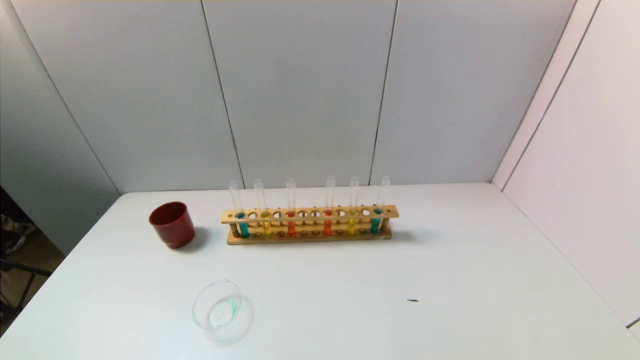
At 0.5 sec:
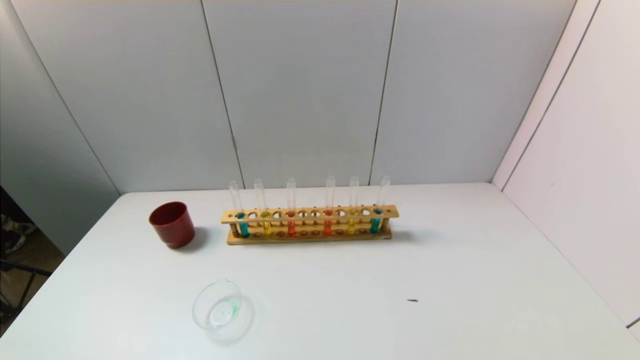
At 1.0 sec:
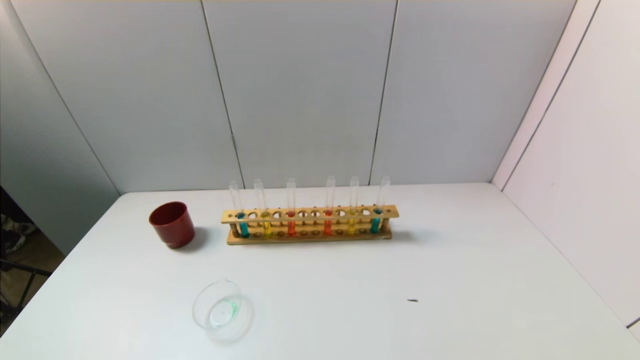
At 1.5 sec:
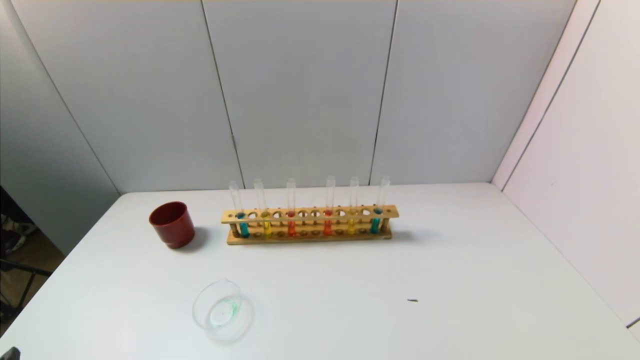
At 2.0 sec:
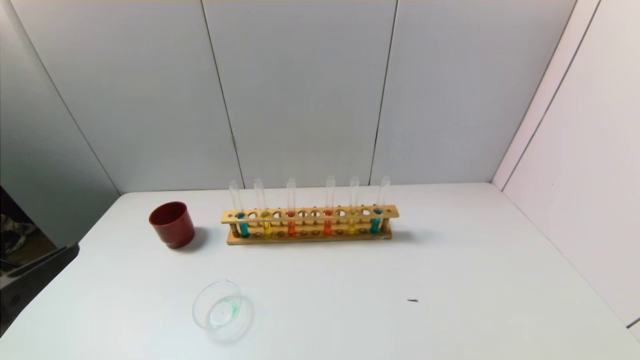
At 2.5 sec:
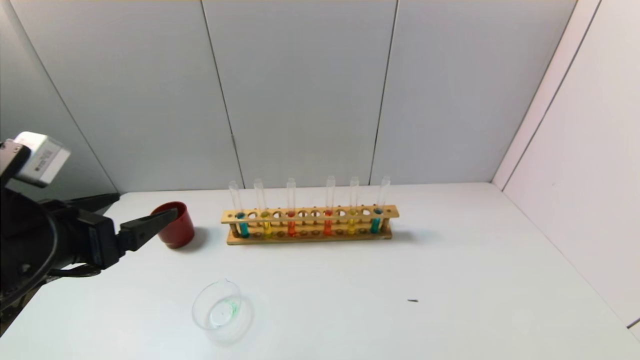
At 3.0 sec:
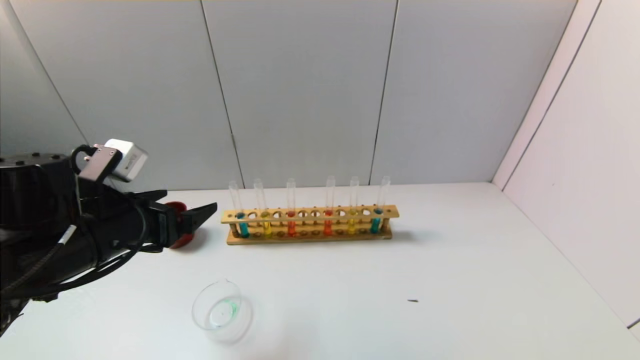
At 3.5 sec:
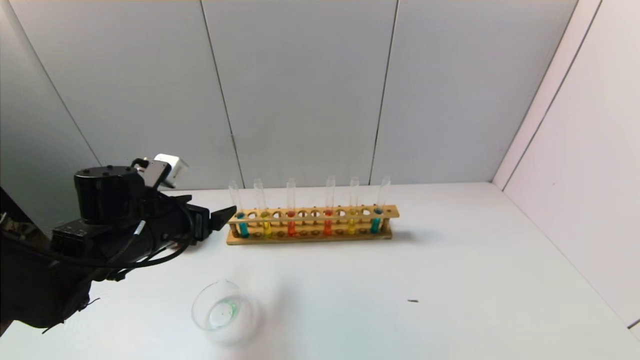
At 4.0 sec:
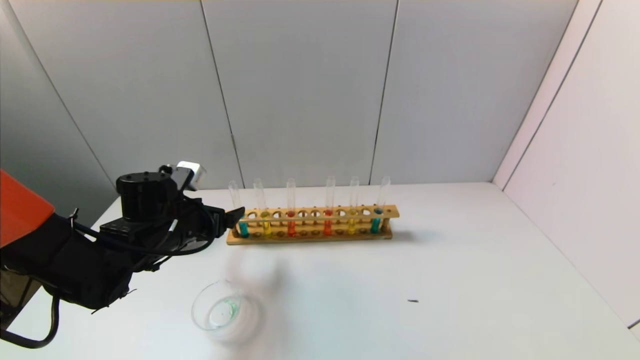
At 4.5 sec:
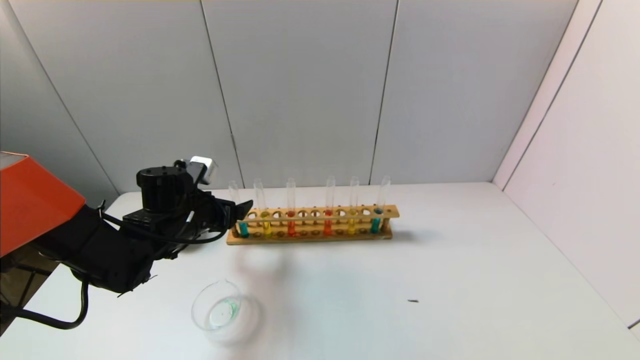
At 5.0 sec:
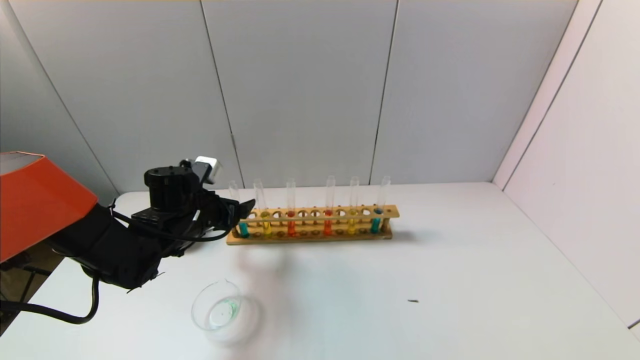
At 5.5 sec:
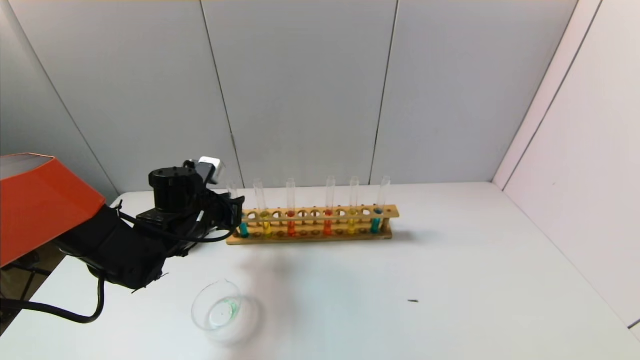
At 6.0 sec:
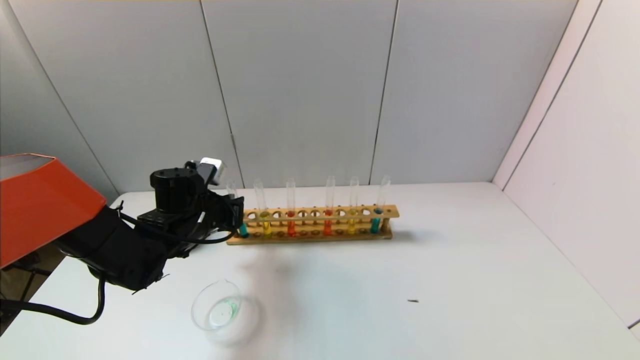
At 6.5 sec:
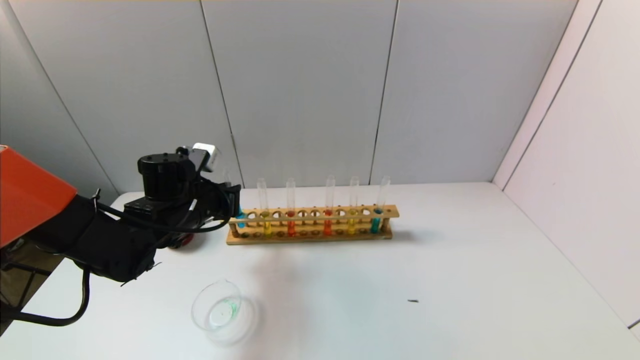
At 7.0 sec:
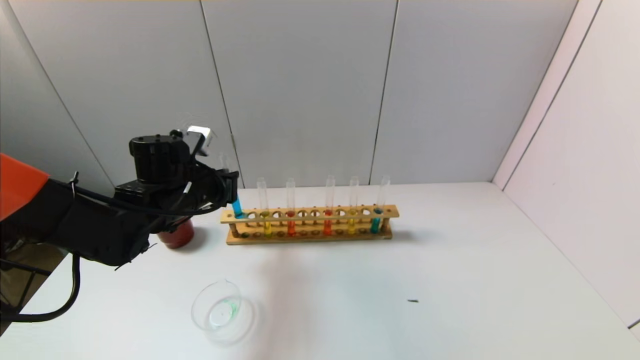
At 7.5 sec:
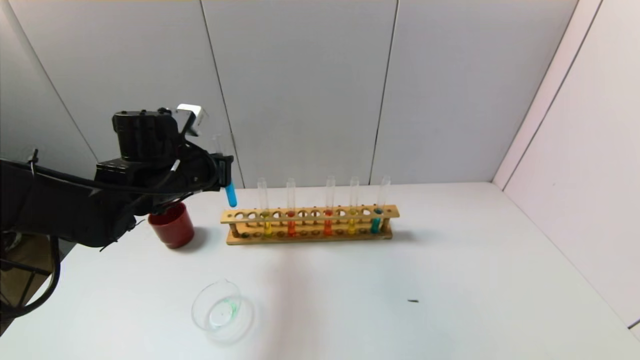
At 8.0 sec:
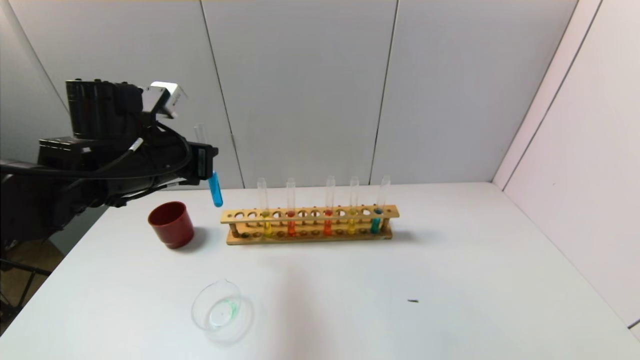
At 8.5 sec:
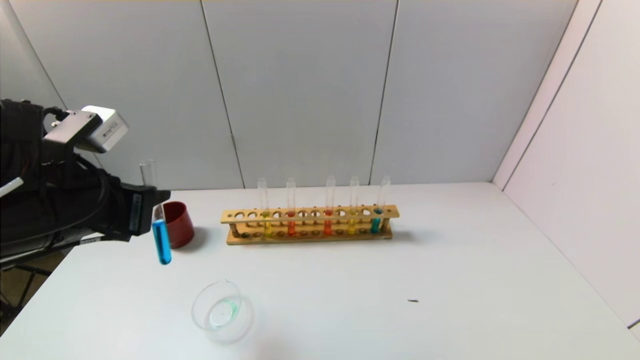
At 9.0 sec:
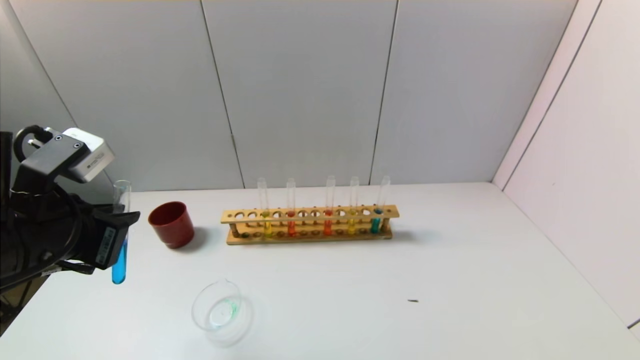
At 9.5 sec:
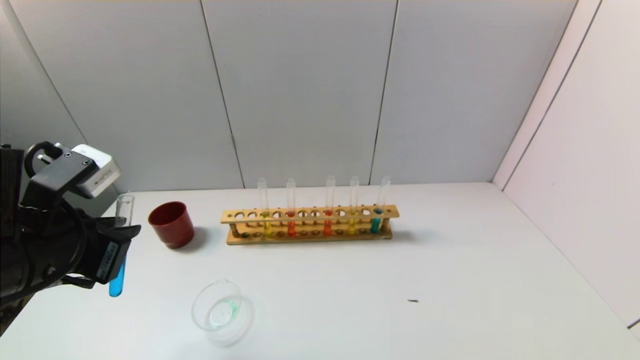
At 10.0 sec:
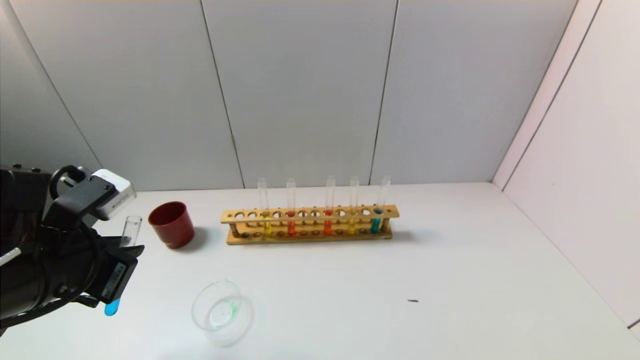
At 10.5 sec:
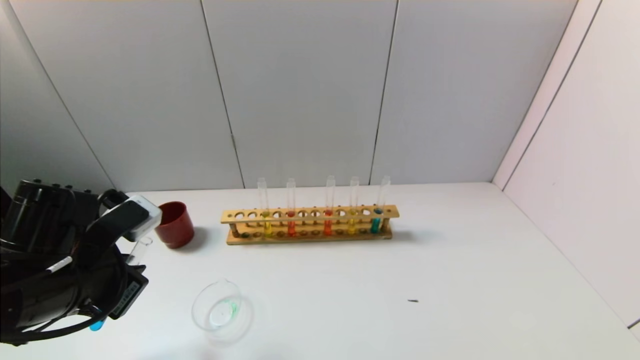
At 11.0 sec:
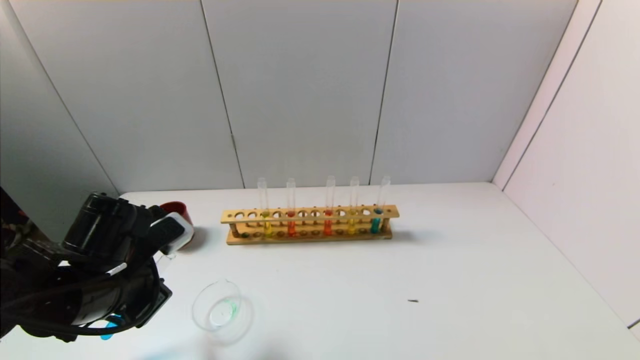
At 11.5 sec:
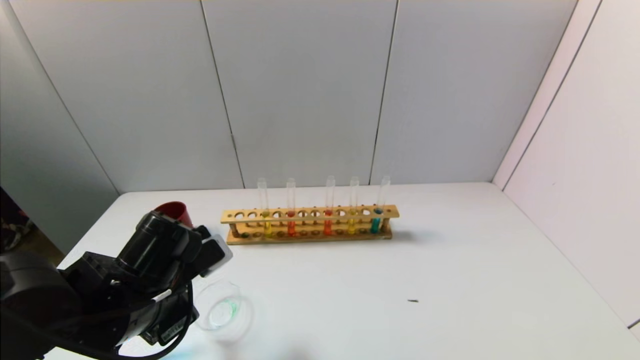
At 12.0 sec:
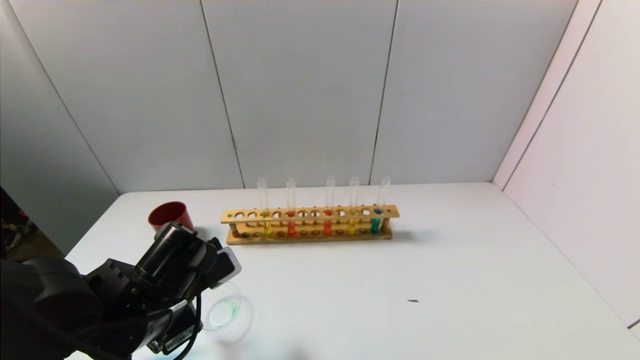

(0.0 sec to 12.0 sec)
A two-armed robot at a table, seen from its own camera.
Task of the whole recording: pick up the test tube with yellow pigment and the test tube with blue pigment by grippers and pour them into the beaker.
Step, 0.0 sec - 6.0 sec: Grasp the blue reagent with the left gripper.
2.0 sec - 4.0 sec: The left gripper moves forward and downward, some 25 cm.
4.0 sec - 6.0 sec: The left gripper closes.
6.0 sec - 8.0 sec: The left gripper is displaced upward by some 15 cm.
8.0 sec - 10.0 sec: The left gripper is displaced backward by approximately 10 cm.
10.0 sec - 12.0 sec: The left gripper heads downward and to the right, covering approximately 10 cm.

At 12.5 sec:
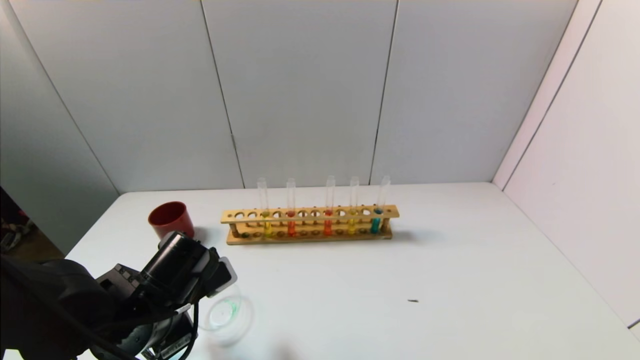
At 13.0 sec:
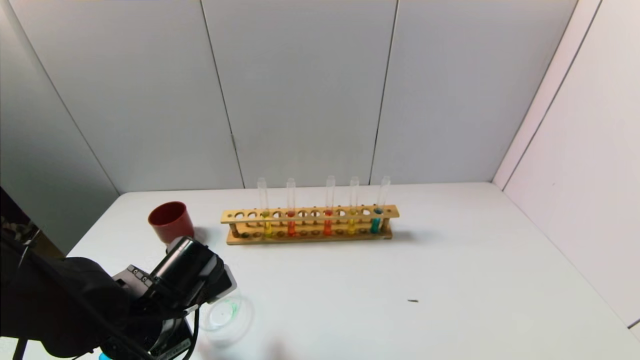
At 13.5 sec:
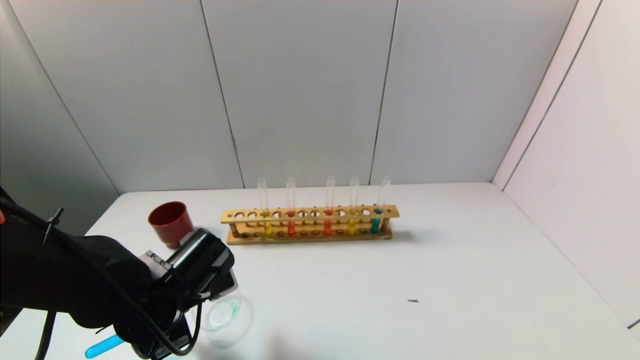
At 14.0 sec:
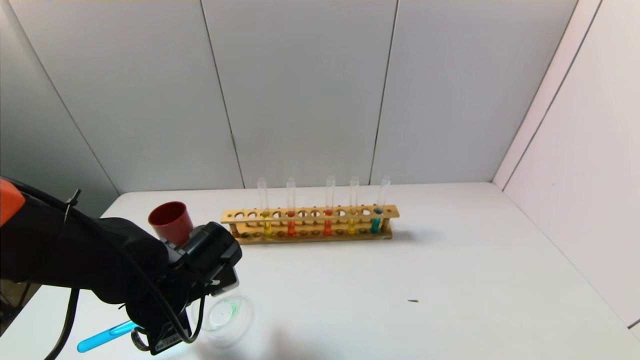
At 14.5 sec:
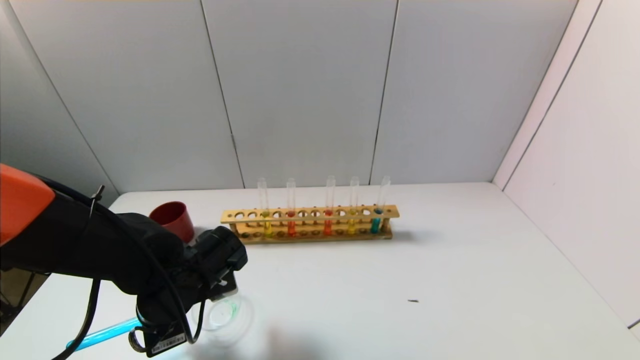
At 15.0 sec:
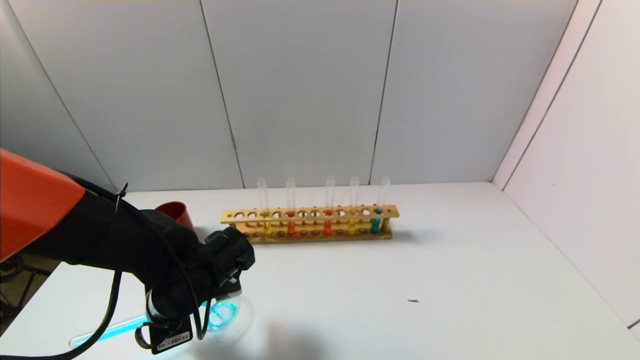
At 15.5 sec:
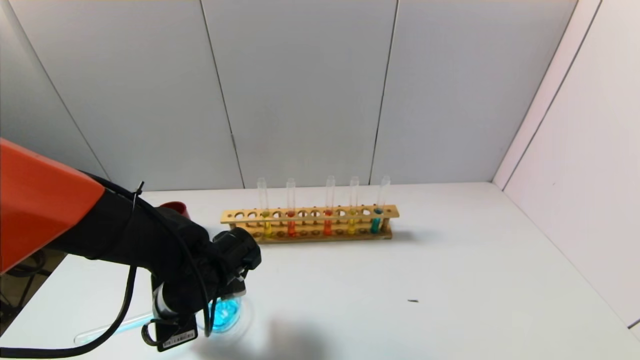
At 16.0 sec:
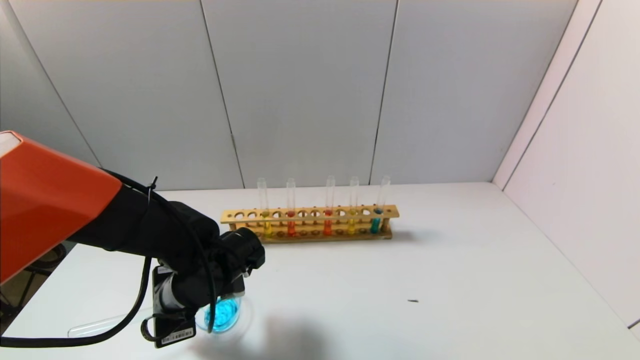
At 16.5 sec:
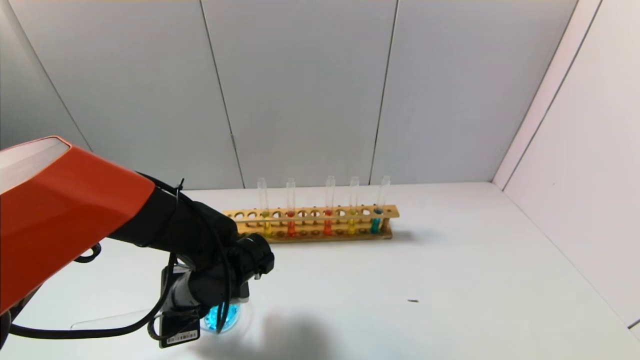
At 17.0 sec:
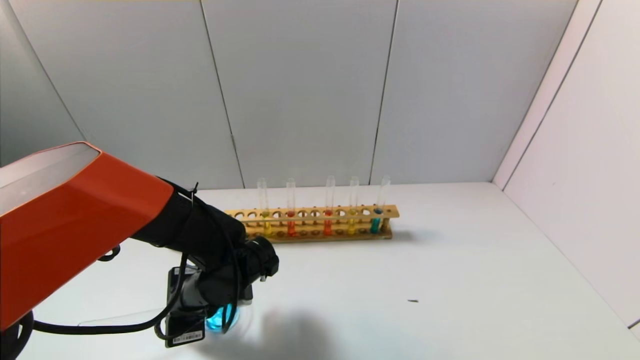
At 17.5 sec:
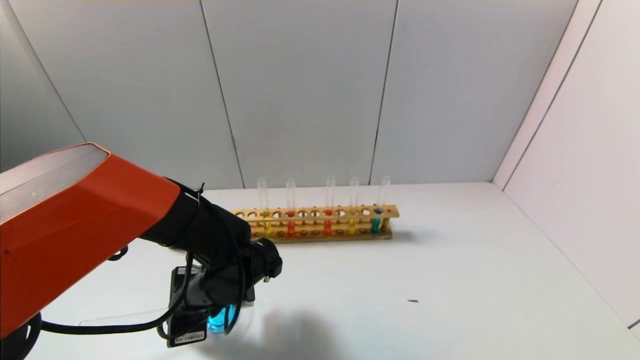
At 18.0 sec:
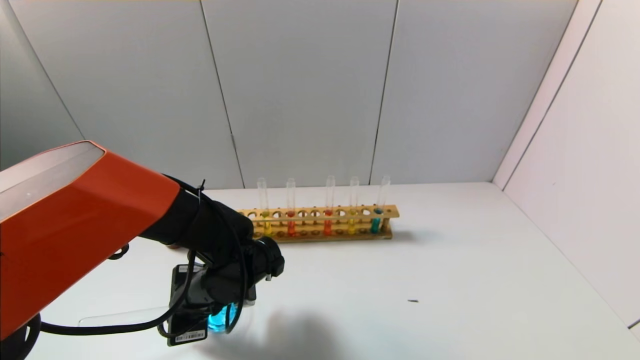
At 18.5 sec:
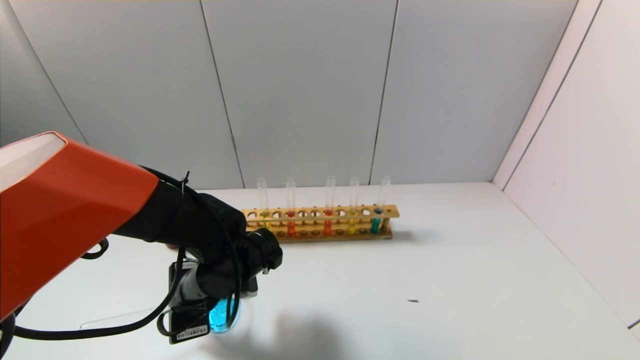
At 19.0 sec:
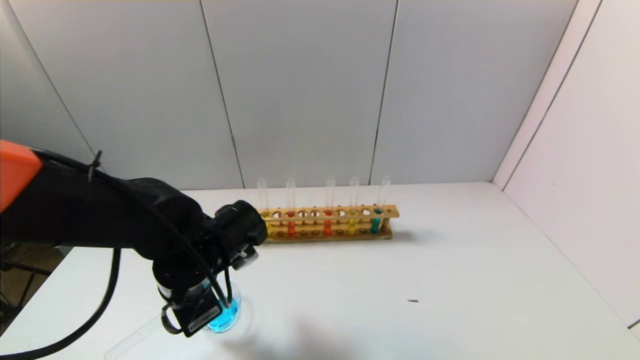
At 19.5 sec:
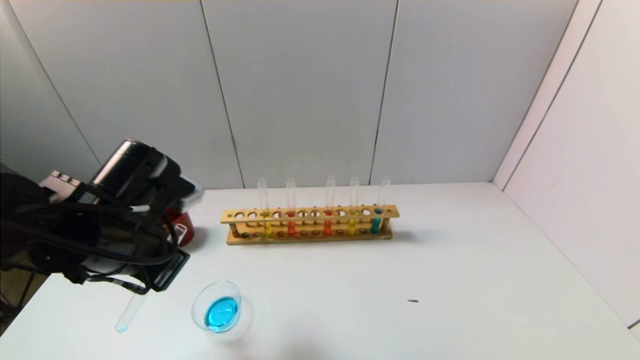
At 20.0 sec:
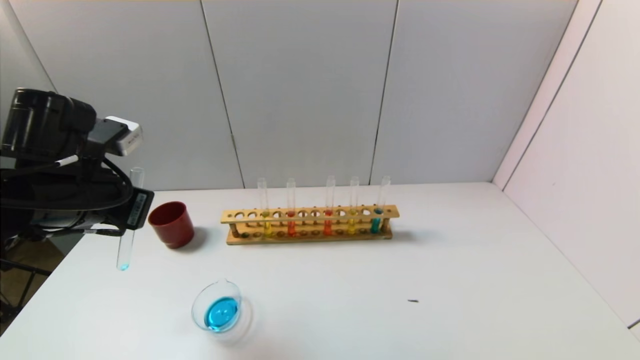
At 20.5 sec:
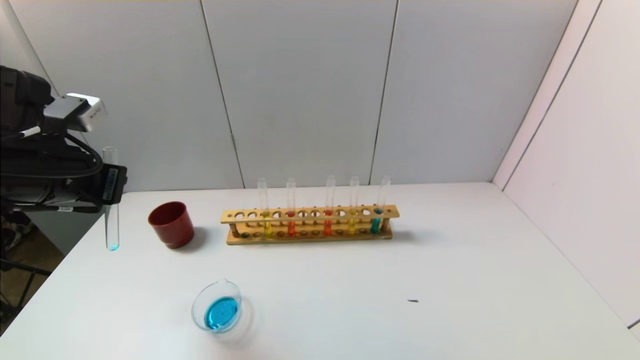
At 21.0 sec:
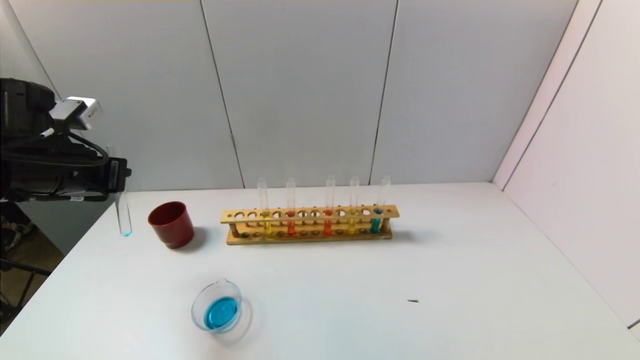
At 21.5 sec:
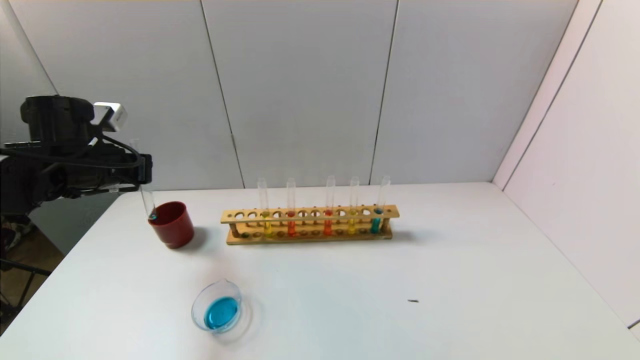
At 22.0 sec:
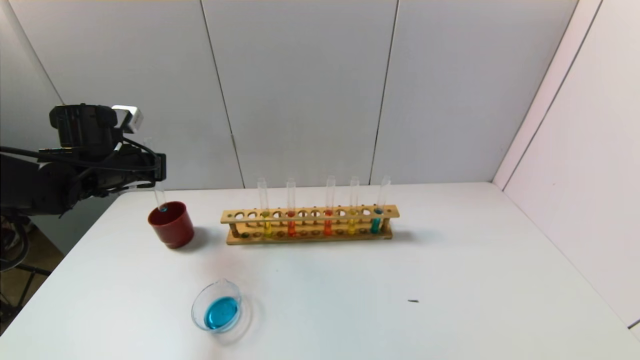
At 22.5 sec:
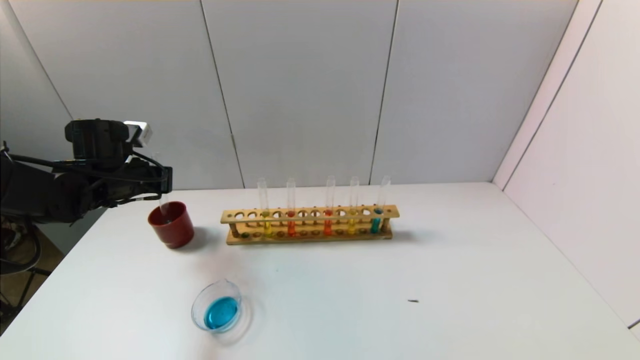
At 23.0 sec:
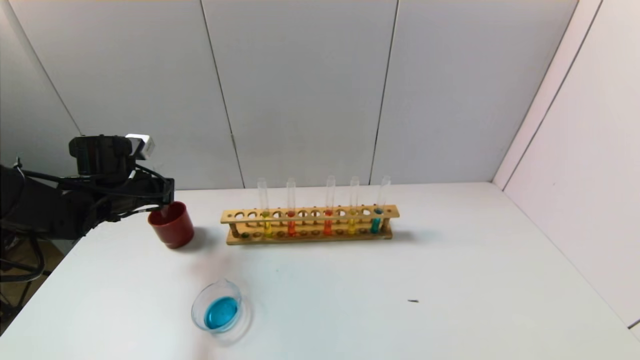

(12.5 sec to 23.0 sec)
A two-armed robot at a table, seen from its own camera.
Task of the whole recording: pick up the test tube with yellow pigment and the test tube with blue pigment by grippers and pour them into the beaker.
Step, 12.5 sec - 19.0 sec: Pour the blue reagent into the graduated cylinder with the left gripper.
14.5 sec - 16.5 sec: The grippers stay close to where they were, moving slightly.
16.5 sec - 19.0 sec: The left gripper heads upward, covering about 5 cm.
19.0 sec - 21.0 sec: The left gripper shifts about 20 cm to the left and upward.
21.0 sec - 23.0 sec: The left gripper moves downward and forward, about 10 cm.
